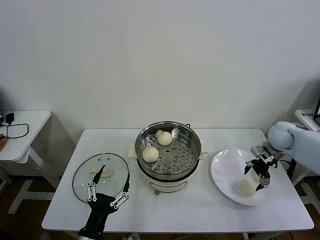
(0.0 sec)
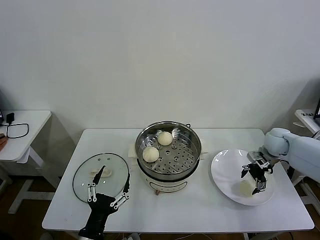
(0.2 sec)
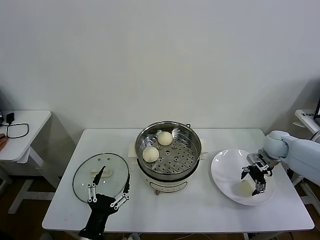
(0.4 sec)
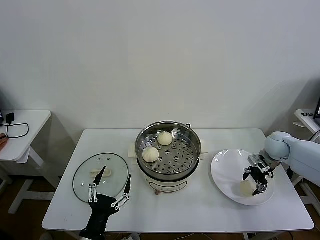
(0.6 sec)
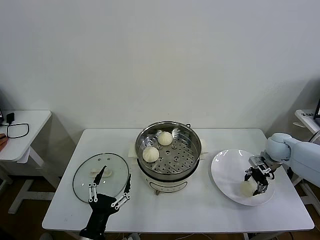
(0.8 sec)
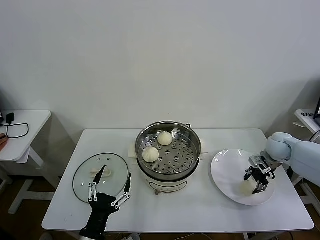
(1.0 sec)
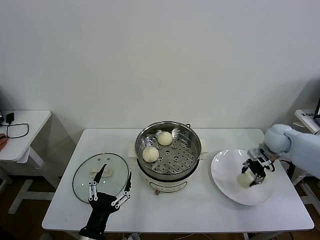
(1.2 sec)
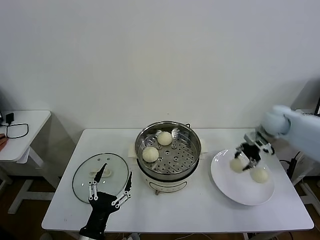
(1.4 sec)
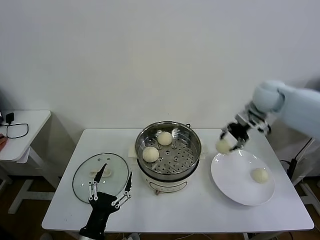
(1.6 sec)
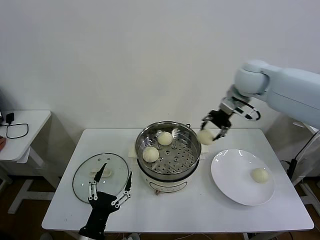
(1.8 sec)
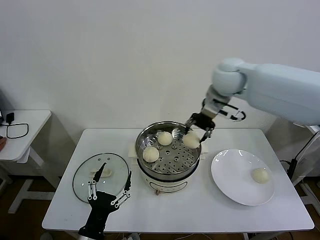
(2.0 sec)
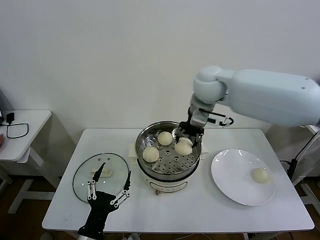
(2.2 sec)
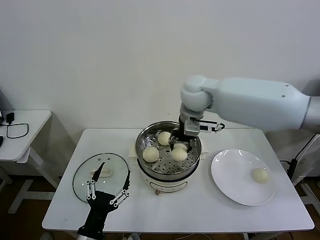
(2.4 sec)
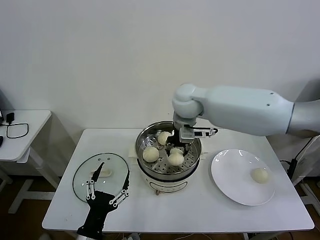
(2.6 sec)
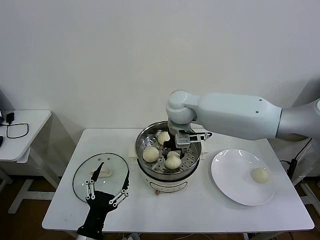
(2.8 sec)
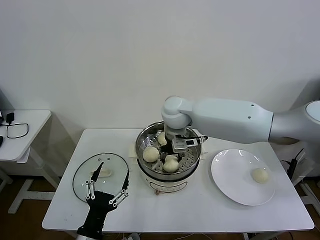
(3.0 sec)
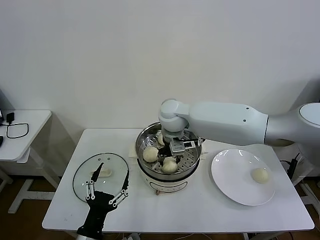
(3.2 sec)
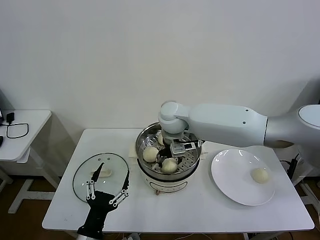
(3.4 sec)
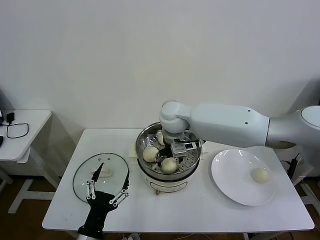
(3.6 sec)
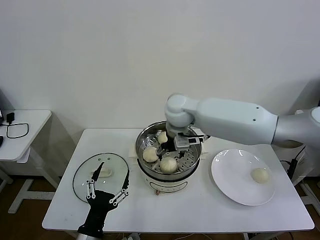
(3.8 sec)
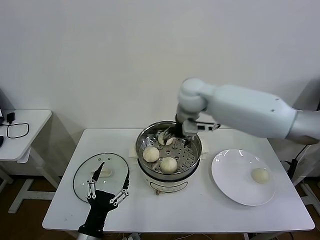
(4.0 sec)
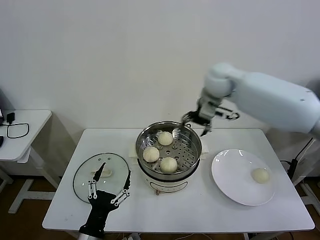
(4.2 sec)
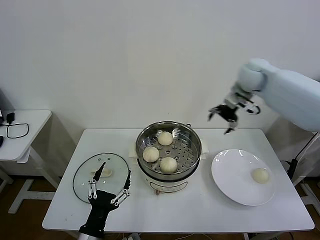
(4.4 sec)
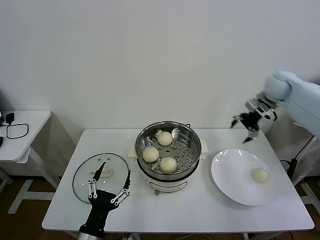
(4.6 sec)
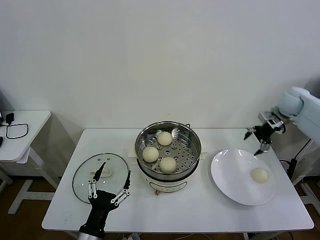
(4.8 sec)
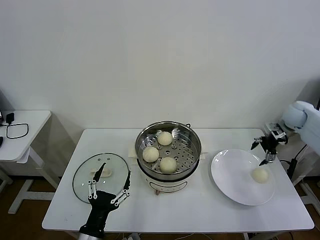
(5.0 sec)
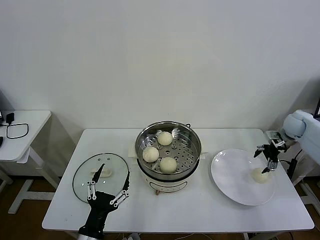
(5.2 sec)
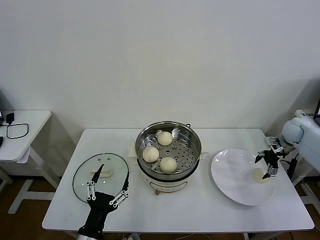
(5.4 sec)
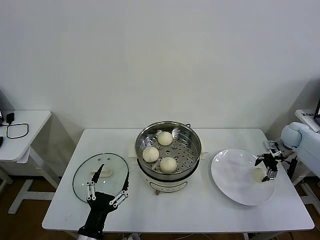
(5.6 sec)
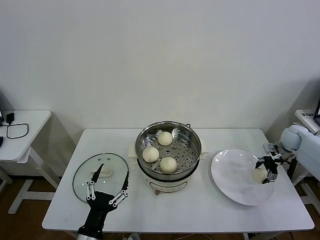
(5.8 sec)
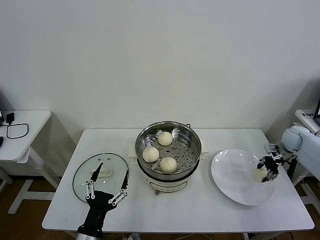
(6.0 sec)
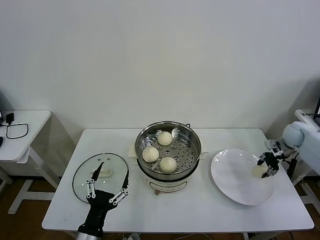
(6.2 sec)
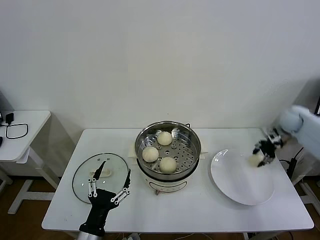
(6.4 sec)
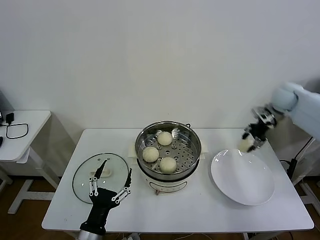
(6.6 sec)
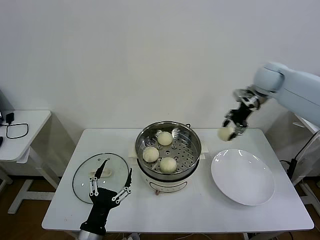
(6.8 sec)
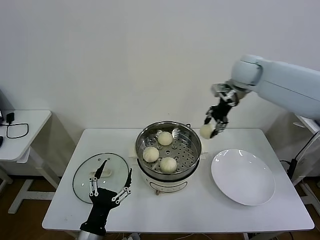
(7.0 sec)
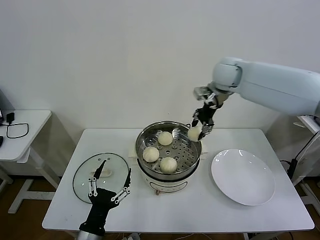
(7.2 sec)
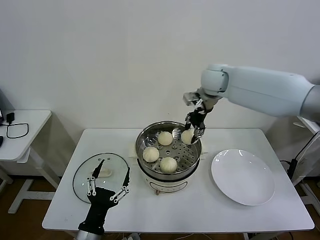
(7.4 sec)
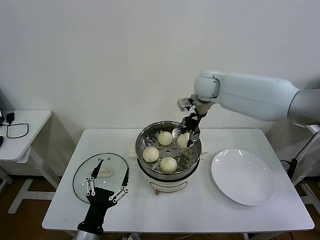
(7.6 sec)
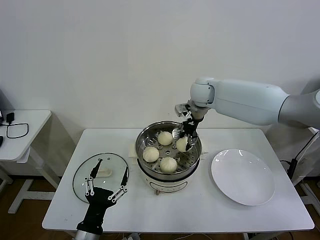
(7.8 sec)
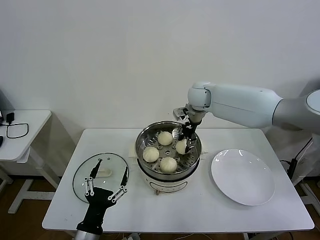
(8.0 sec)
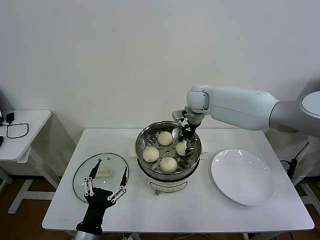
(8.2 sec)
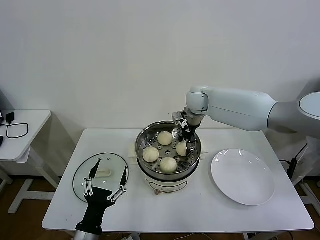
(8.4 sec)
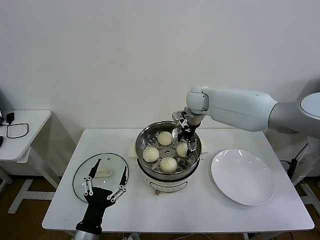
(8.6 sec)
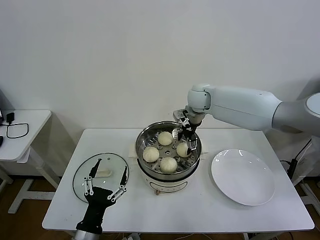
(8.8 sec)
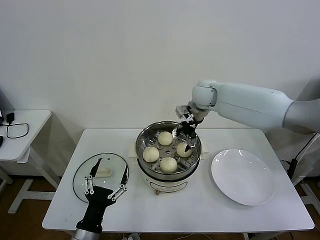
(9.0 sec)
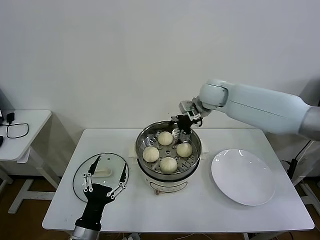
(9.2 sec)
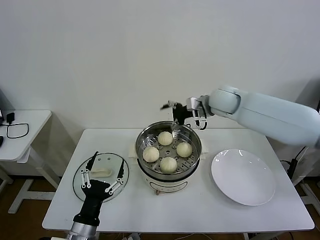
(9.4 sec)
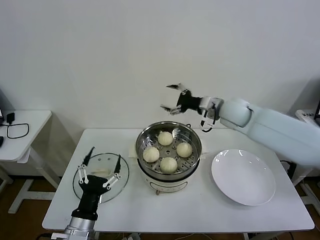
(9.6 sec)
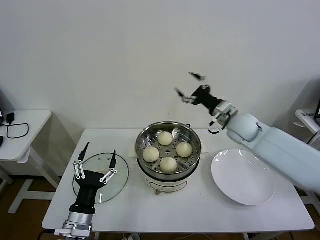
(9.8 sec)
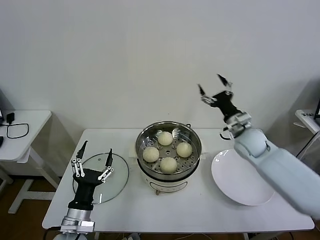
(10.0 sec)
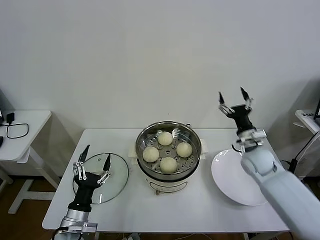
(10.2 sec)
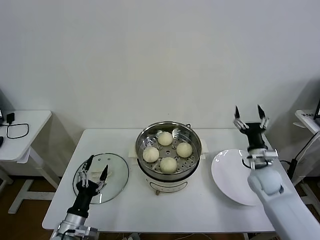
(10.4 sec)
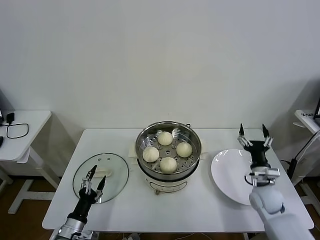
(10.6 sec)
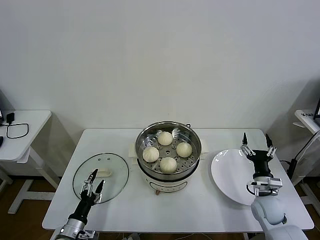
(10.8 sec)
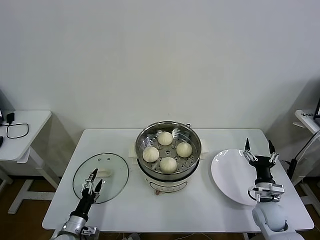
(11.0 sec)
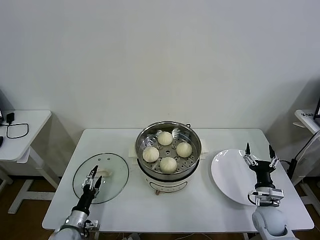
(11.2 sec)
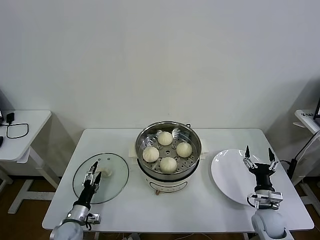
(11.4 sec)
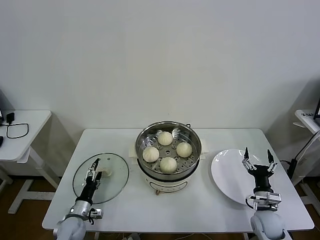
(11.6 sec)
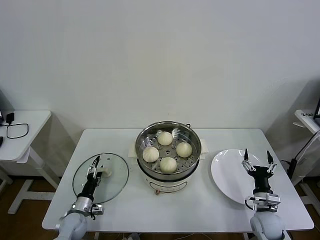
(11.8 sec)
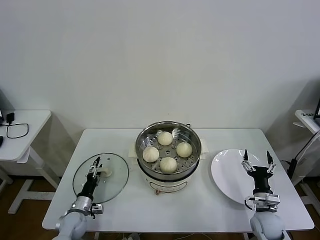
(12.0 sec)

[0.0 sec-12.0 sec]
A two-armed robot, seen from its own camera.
Task of the whole recording: take steamed baozi put them in steamer then cover it.
Step, 1.0 sec to 3.4 sec: Place the baozi on the steamer with right gripper.
Step, 3.6 sec to 6.0 sec: Grasp the baozi in the plate with right gripper.
Step, 6.2 sec to 8.6 sec: Place the baozi on the steamer with right gripper.
0.0 sec to 1.6 sec: The right gripper travels upward and to the left by roughly 20 cm, and closes its fingers.
1.6 sec to 3.0 sec: The right gripper goes approximately 25 cm to the left.
3.0 sec to 4.4 sec: The right gripper heads to the right, covering roughly 30 cm, and opens.
4.4 sec to 6.0 sec: The right gripper shifts roughly 30 cm downward and to the right, and closes its fingers.
6.0 sec to 7.6 sec: The right gripper is displaced to the left and upward by about 40 cm.
7.6 sec to 9.0 sec: The right gripper opens its fingers.
9.0 sec to 10.4 sec: The left gripper moves to the left, downward and forward, roughly 10 cm. The right gripper is displaced downward, to the right and backward by roughly 35 cm.
10.4 sec to 12.0 sec: The right gripper shifts approximately 15 cm downward and backward, while the left gripper goes roughly 15 cm downward and forward.

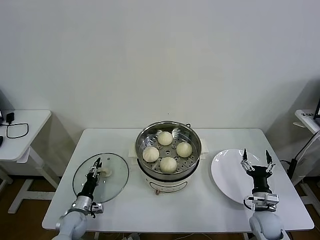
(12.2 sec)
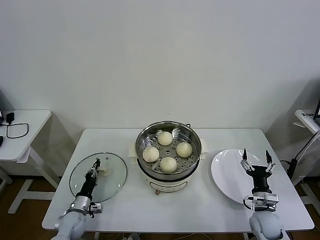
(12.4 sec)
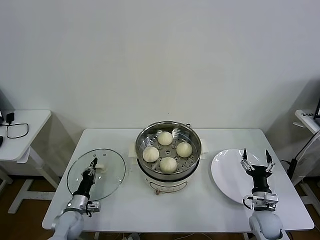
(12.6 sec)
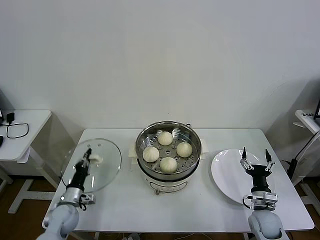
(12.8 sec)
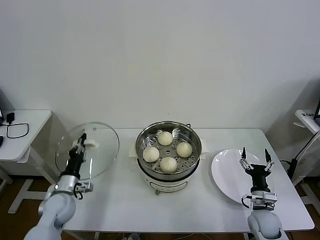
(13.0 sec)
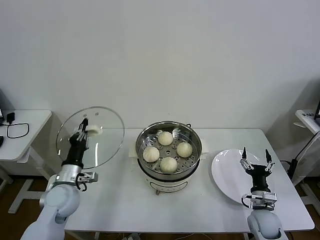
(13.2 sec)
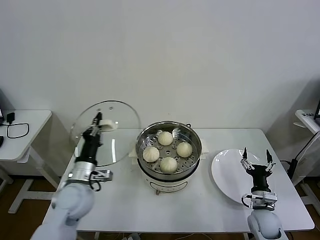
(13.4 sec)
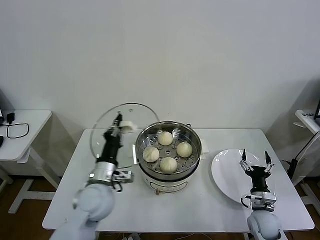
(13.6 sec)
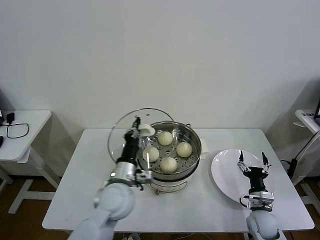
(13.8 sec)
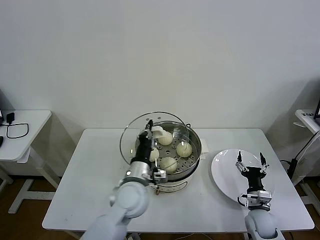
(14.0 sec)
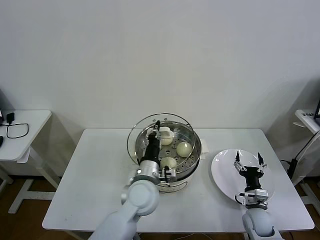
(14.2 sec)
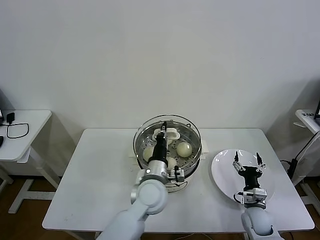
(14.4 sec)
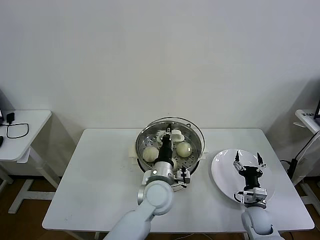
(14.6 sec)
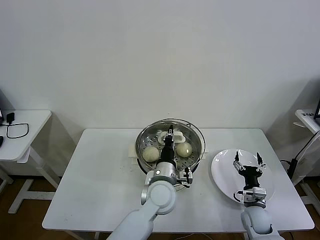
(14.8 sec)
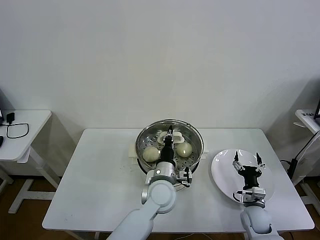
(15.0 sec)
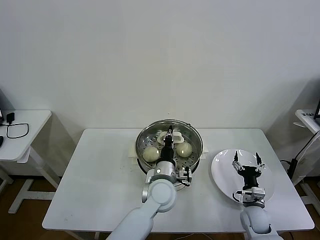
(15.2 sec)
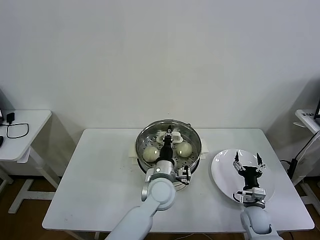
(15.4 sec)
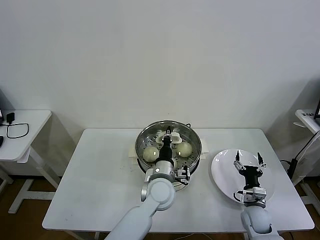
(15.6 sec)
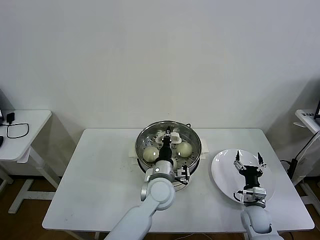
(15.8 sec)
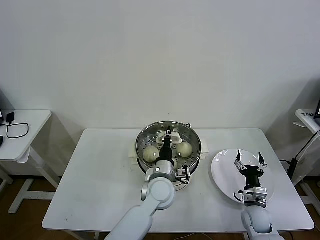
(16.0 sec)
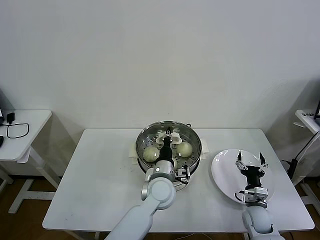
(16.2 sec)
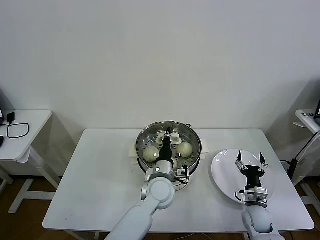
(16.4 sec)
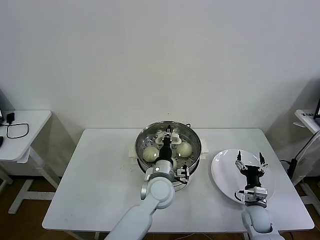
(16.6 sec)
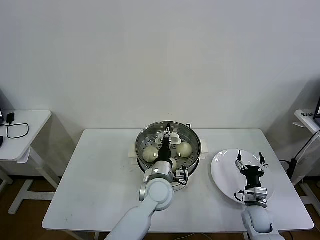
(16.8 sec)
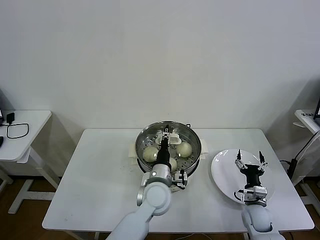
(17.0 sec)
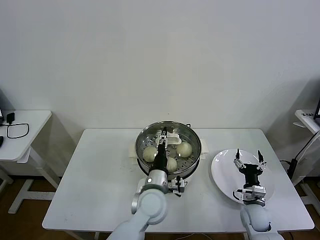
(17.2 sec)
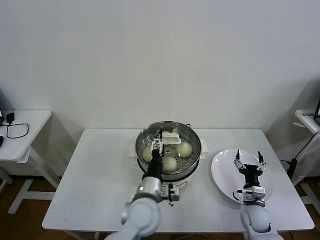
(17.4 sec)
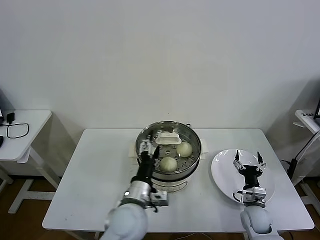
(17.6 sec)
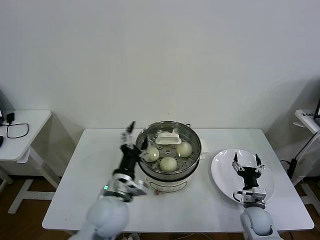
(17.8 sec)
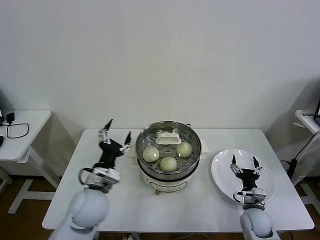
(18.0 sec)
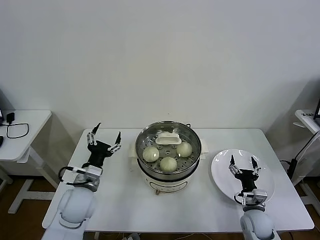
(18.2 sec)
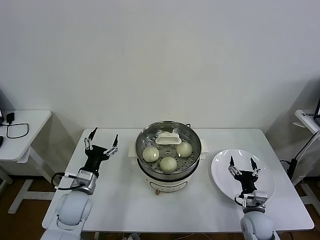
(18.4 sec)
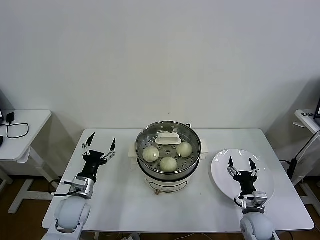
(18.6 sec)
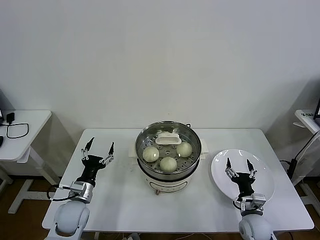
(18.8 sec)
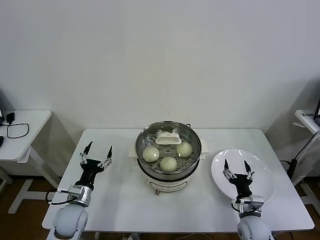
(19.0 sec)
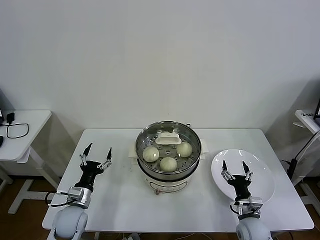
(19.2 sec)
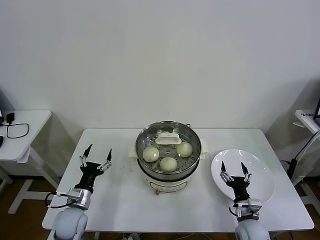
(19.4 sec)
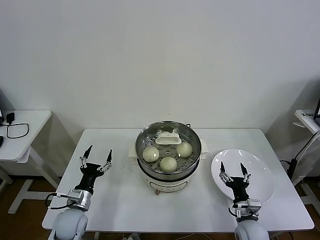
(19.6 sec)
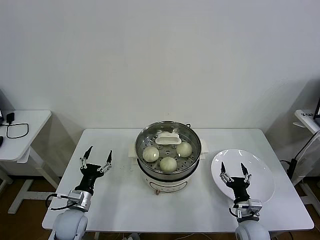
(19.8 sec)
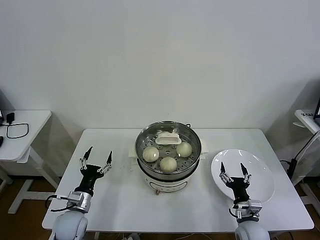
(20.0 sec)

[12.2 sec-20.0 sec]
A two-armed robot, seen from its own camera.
Task of the whole recording: take steamed baozi put them in steamer then cover it.
Step, 12.8 sec to 17.2 sec: Place the pot lid on the steamer with left gripper.
12.2 sec to 13.8 sec: The left gripper moves upward and to the right, roughly 30 cm, and closes its fingers.
13.8 sec to 15.4 sec: The left gripper moves to the right, some 15 cm.
15.4 sec to 16.8 sec: The left gripper opens.
16.8 sec to 18.4 sec: The left gripper shifts roughly 25 cm to the left, and opens.
18.4 sec to 20.0 sec: The left gripper travels downward by approximately 10 cm.
